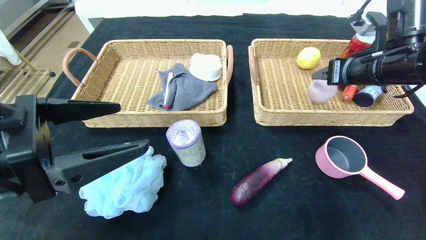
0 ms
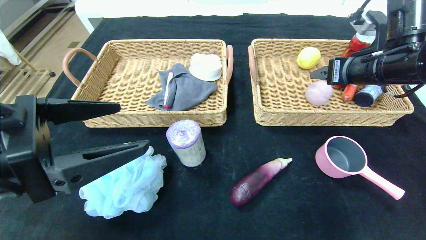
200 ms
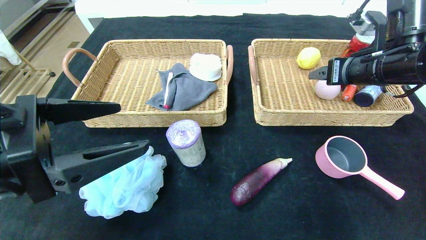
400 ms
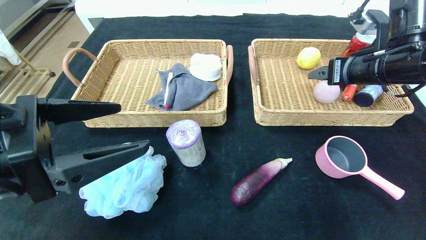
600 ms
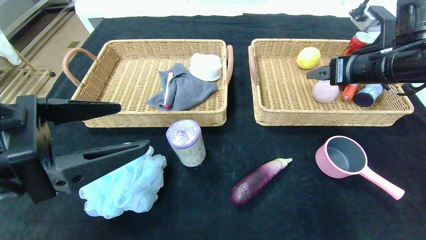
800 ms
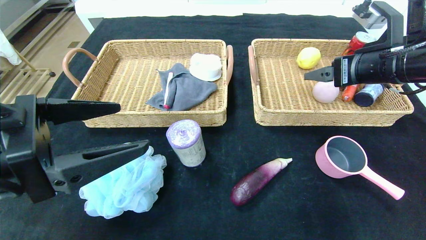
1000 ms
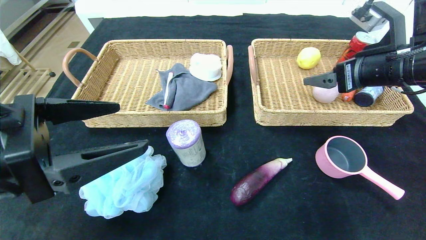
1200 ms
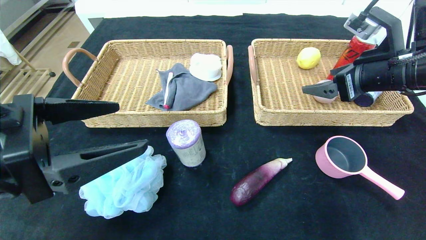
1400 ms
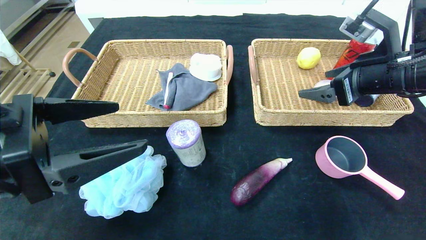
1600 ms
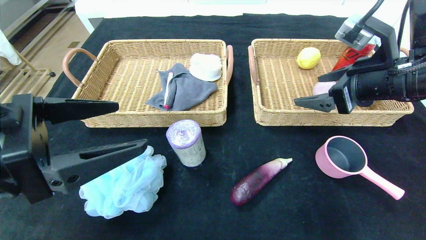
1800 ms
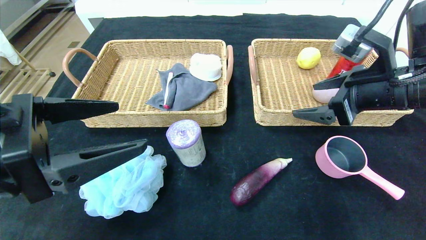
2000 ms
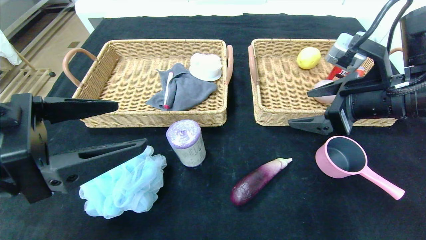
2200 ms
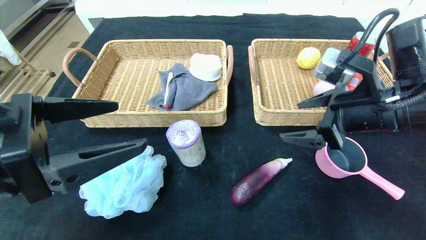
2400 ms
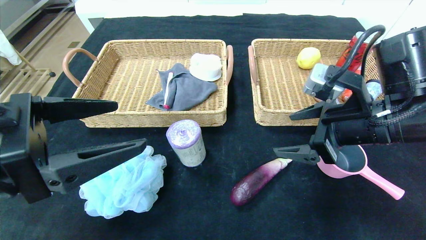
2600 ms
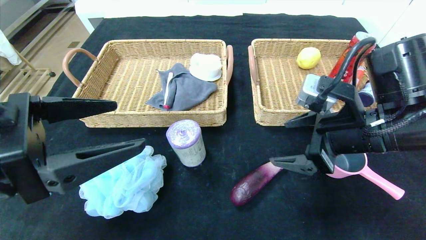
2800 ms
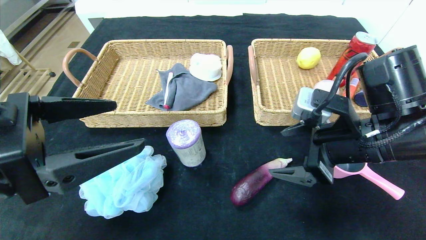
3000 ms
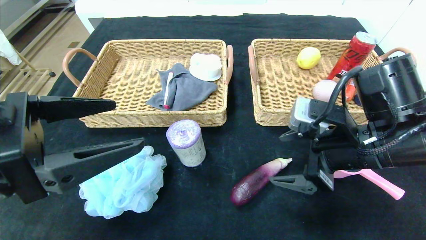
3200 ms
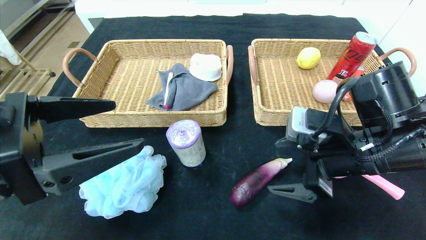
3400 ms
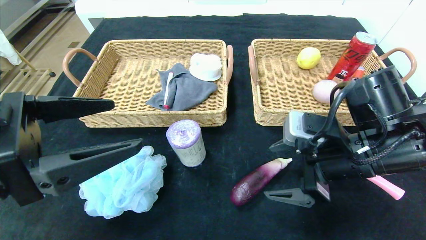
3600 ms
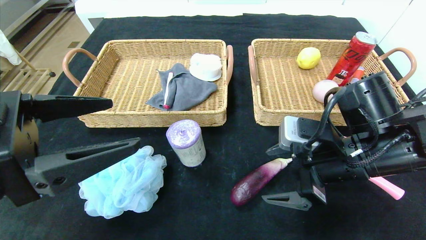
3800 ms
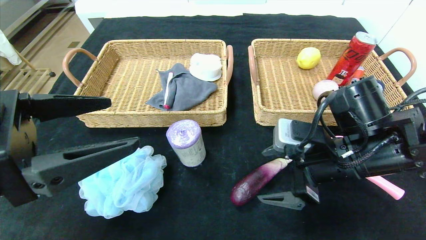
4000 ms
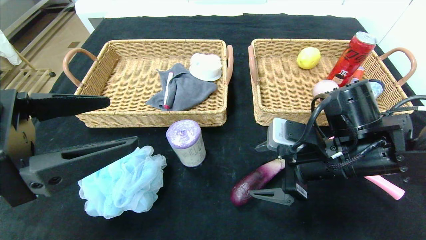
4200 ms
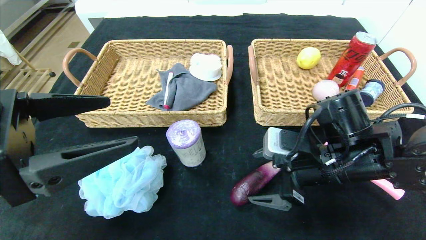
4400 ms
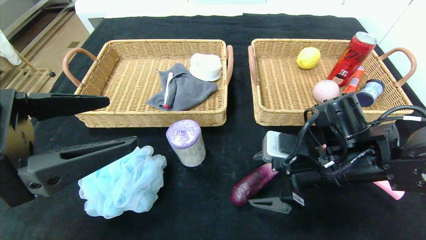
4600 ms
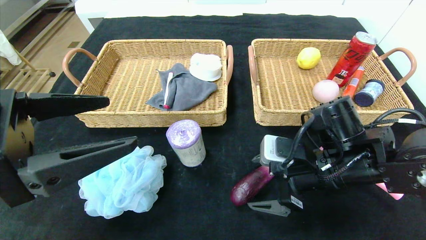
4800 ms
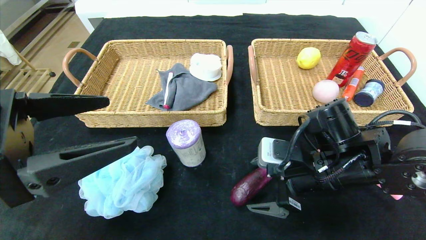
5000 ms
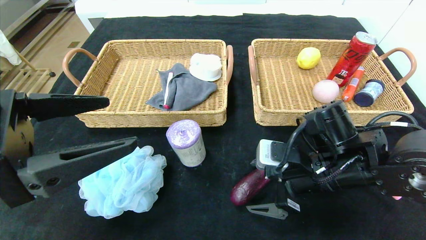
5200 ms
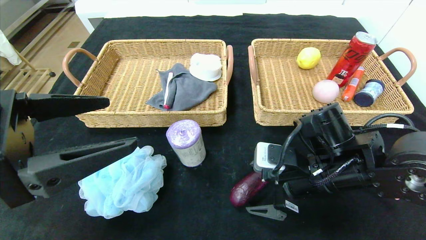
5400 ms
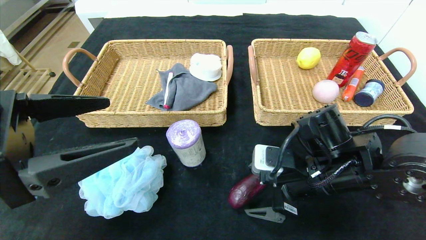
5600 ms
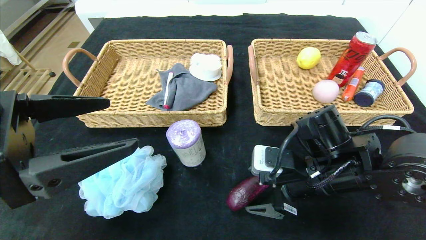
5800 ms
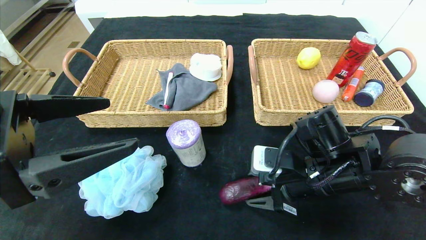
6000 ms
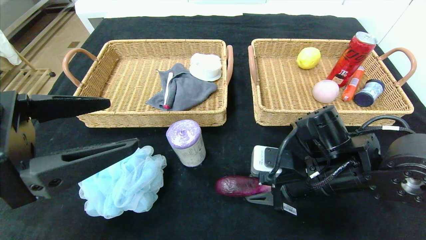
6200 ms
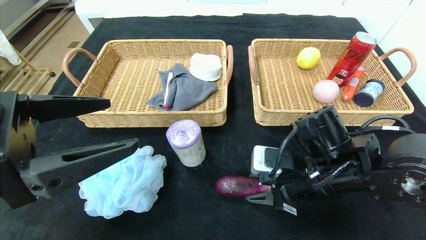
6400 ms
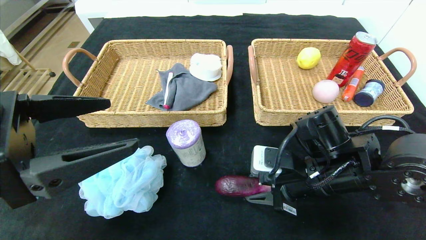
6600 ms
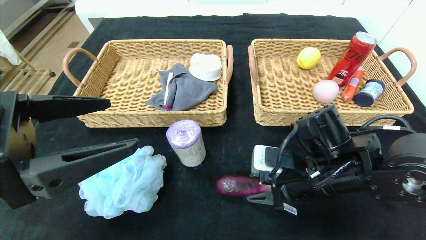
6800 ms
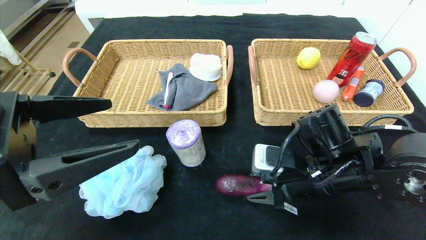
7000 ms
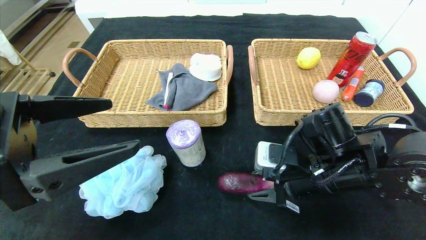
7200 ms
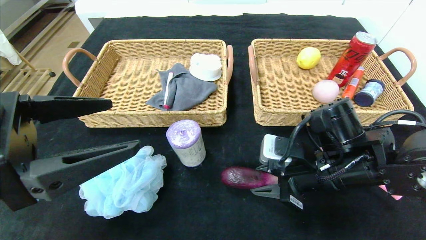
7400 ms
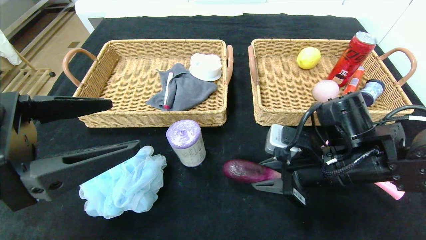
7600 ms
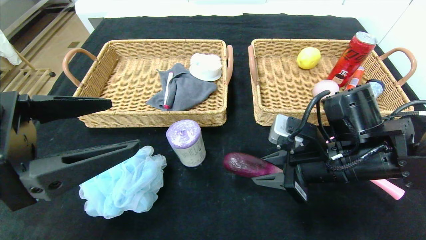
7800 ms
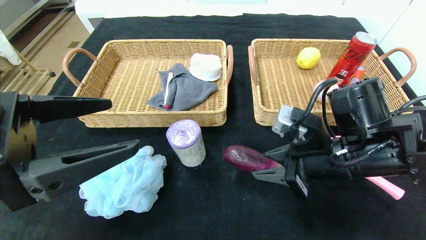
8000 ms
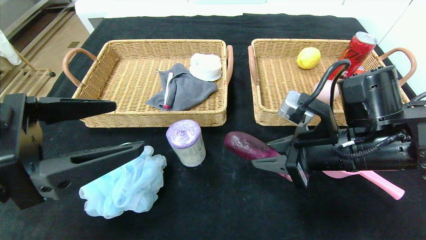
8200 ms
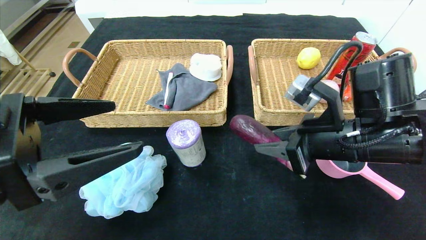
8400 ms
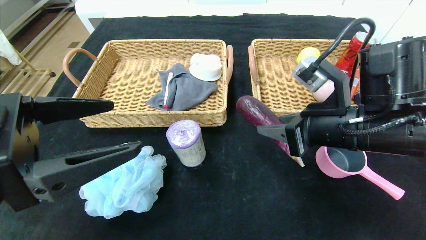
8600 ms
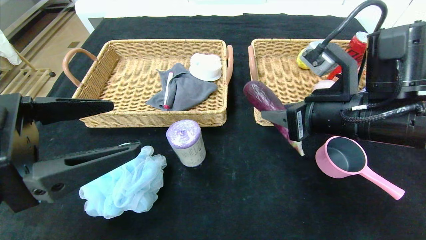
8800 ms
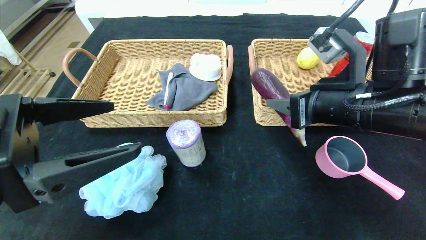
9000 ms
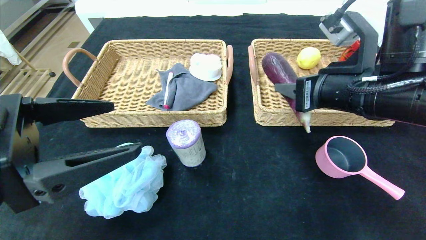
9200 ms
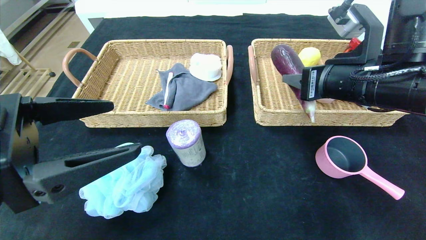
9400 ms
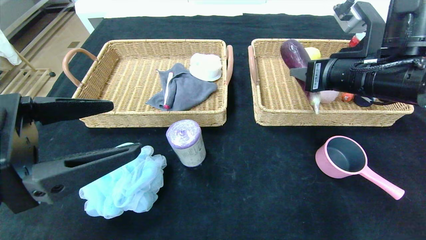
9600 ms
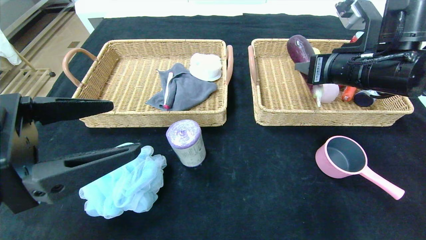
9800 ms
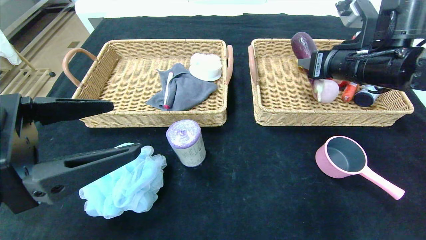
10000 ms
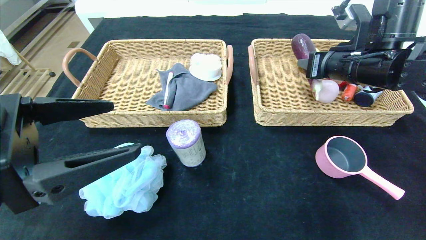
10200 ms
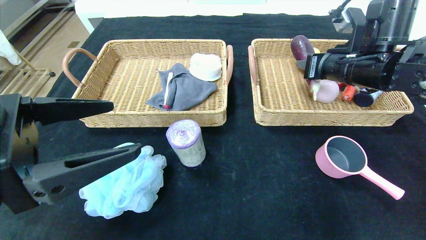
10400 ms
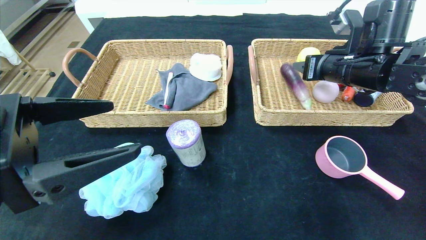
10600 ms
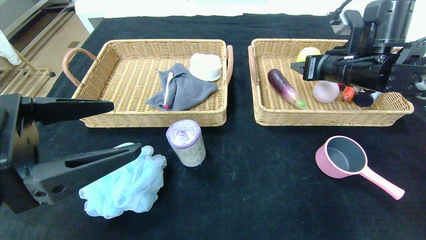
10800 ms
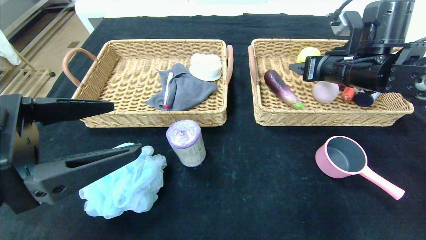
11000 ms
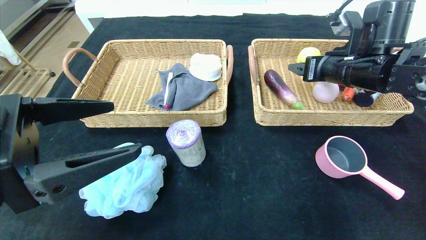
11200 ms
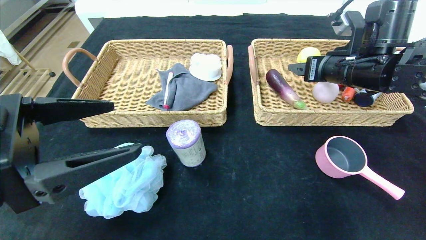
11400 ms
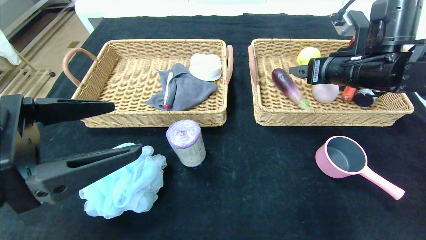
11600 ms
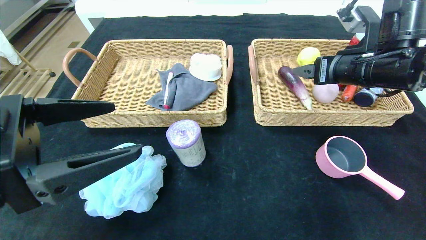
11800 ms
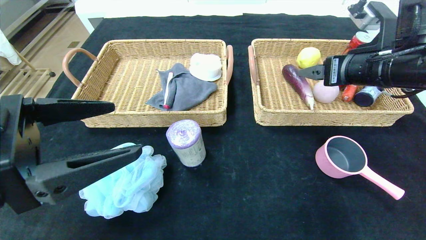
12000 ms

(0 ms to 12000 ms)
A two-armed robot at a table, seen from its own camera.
1600 ms - 3000 ms: The right gripper goes approximately 10 cm downward and to the left.
3000 ms - 4400 ms: The right gripper heads downward, covering approximately 5 cm.
4400 ms - 6000 ms: The right gripper closes up.
6000 ms - 7600 ms: The grippers stay close to where they were, moving slightly.
7600 ms - 9000 ms: The right gripper is displaced upward by some 10 cm.
9000 ms - 10400 ms: The right gripper heads forward and to the right, covering roughly 10 cm.
10400 ms - 12000 ms: The right gripper shifts approximately 5 cm backward, and opens up.

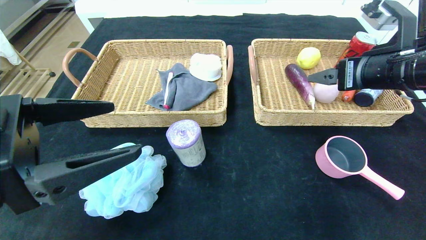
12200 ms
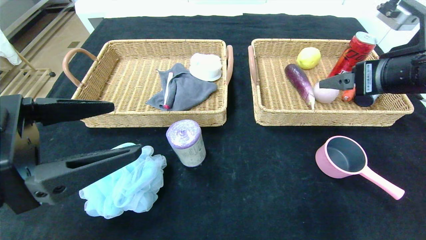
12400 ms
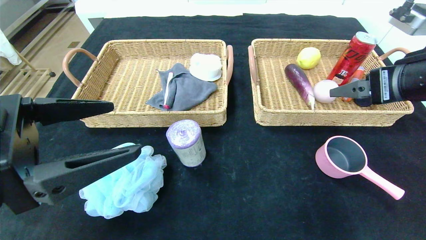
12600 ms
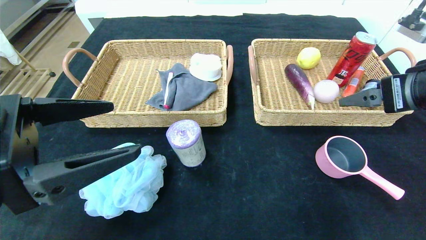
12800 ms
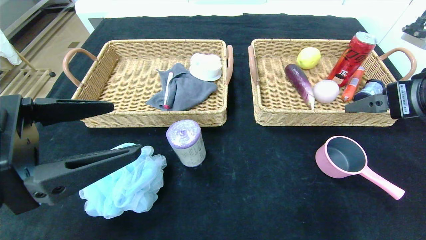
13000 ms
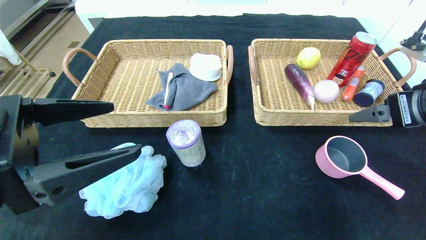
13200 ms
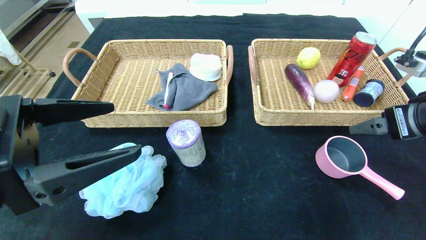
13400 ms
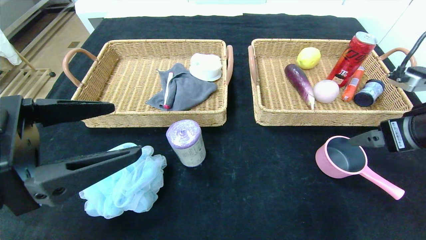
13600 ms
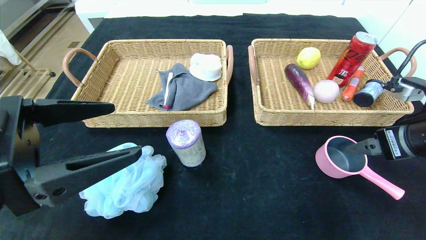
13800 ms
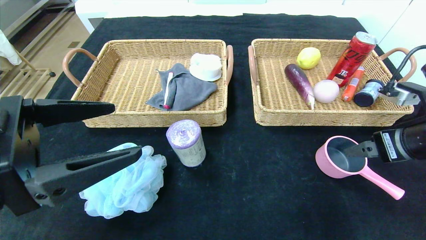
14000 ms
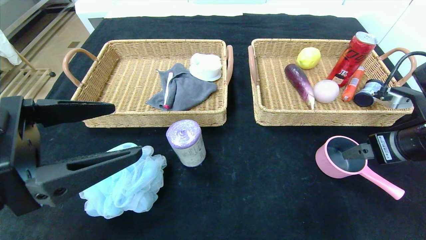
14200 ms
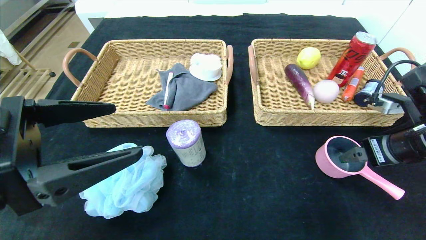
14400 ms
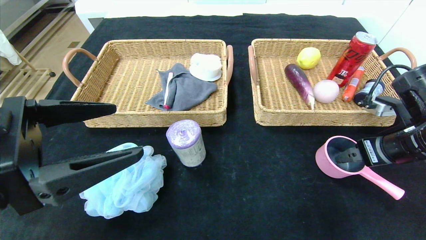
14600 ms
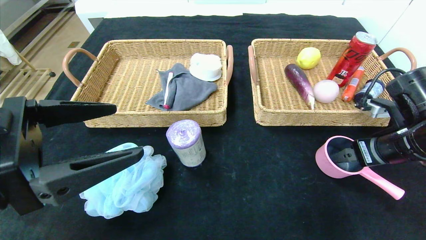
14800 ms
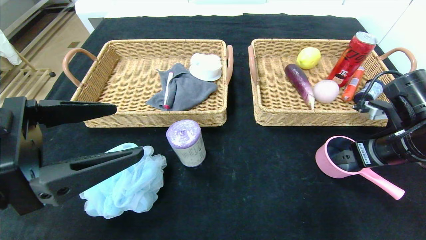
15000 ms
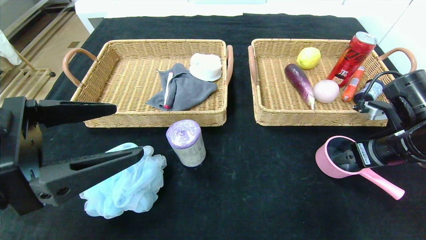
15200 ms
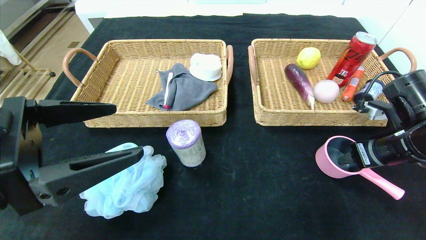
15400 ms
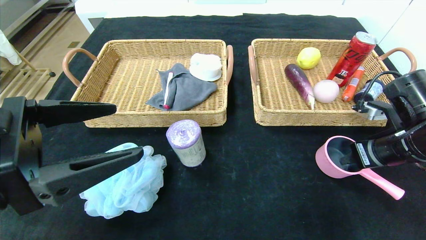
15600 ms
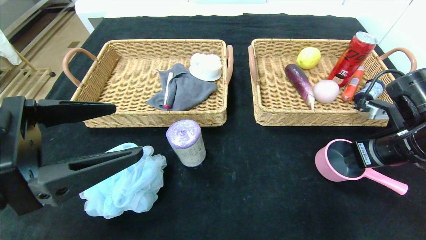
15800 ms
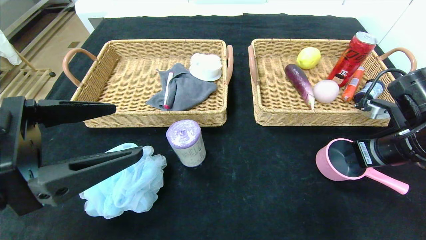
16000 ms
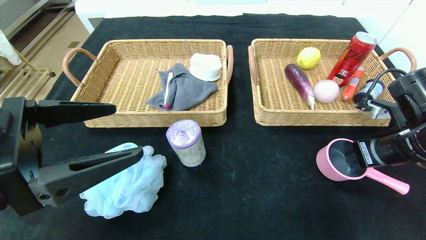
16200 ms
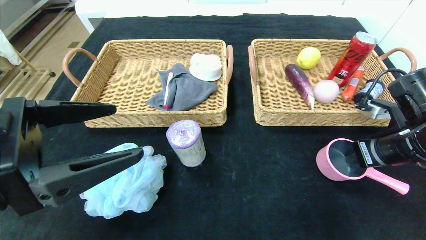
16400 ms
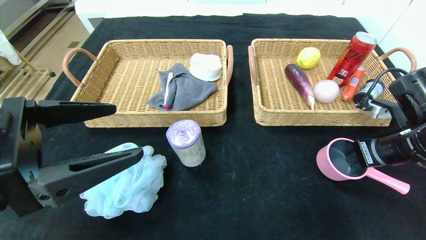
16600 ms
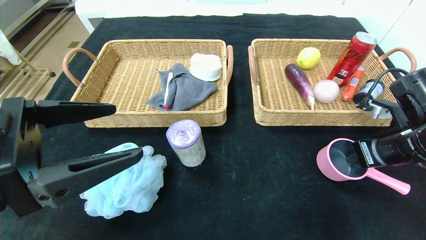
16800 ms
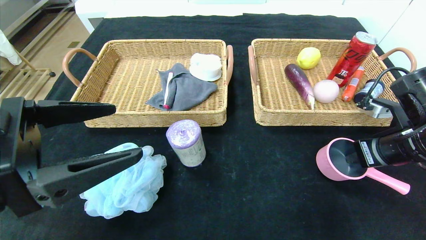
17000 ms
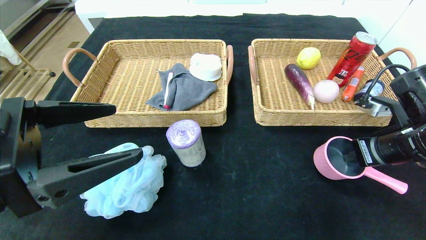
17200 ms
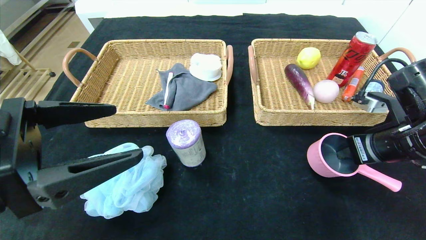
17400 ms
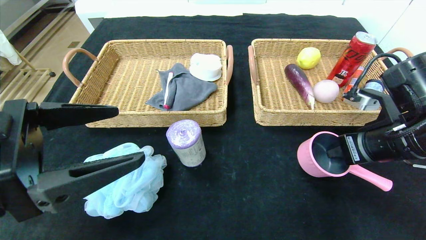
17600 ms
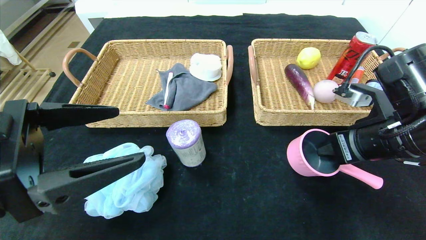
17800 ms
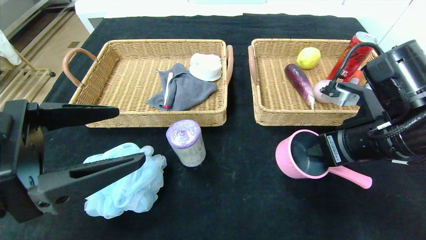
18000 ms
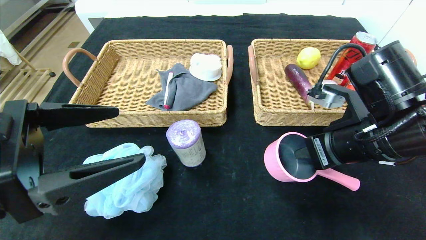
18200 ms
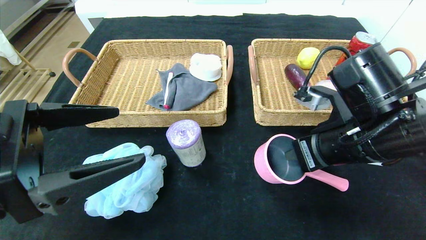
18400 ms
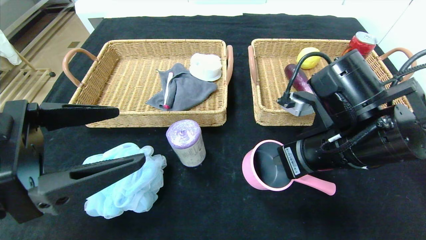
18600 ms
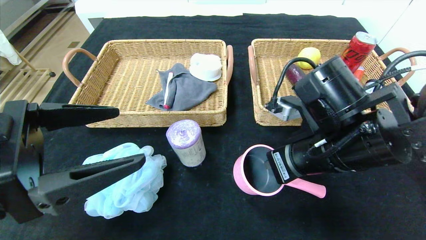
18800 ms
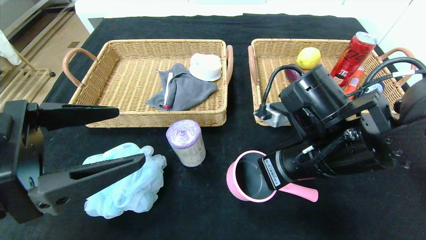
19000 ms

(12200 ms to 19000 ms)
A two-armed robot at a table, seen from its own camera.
12200 ms - 13600 ms: The right gripper goes some 5 cm downward and backward.
13600 ms - 15000 ms: The right gripper travels downward by roughly 5 cm.
15000 ms - 16200 ms: The right gripper closes.
16200 ms - 17600 ms: The right gripper shifts by approximately 5 cm.
17600 ms - 19000 ms: The right gripper moves to the left, some 15 cm.
